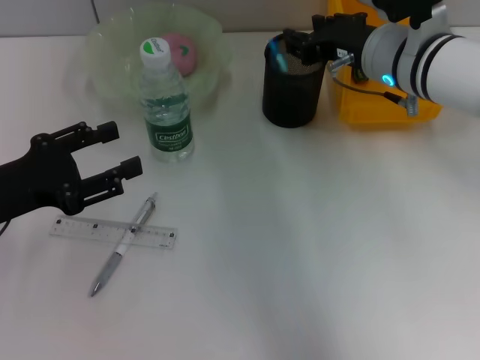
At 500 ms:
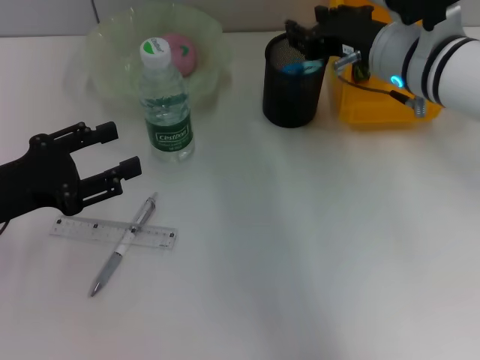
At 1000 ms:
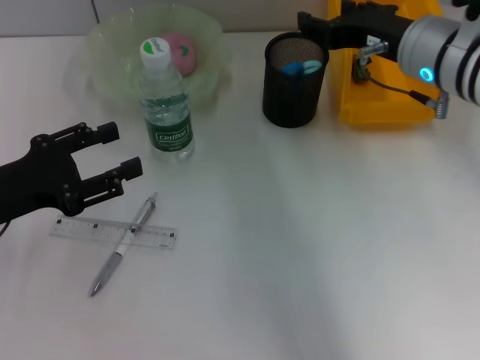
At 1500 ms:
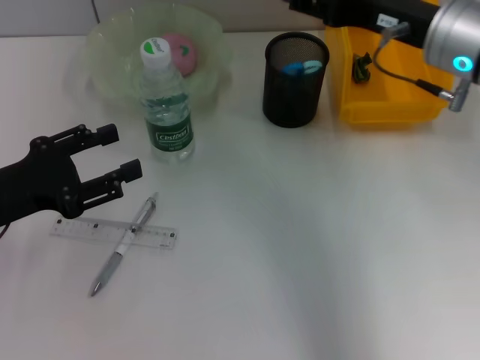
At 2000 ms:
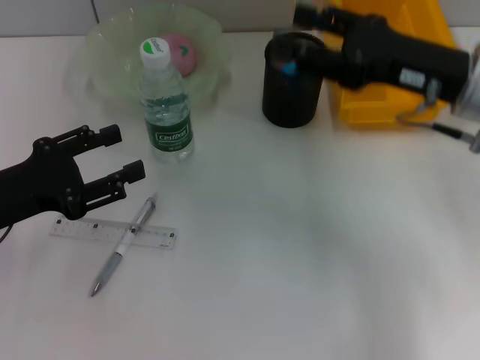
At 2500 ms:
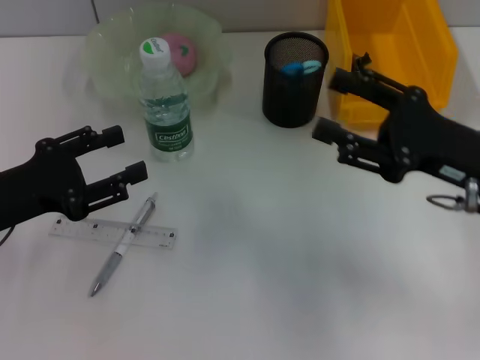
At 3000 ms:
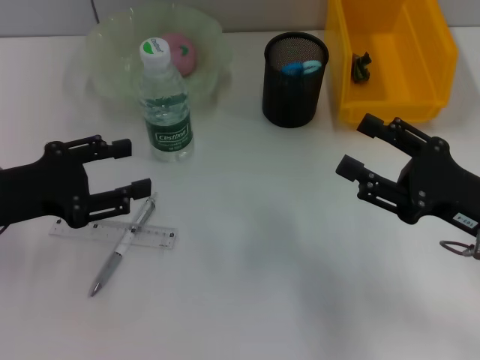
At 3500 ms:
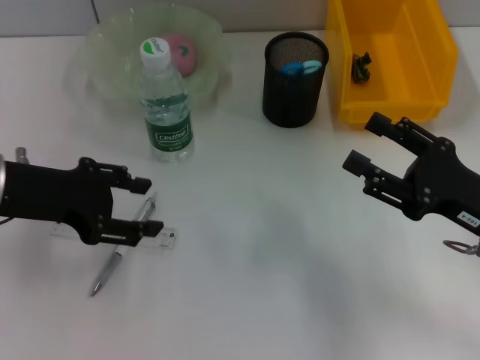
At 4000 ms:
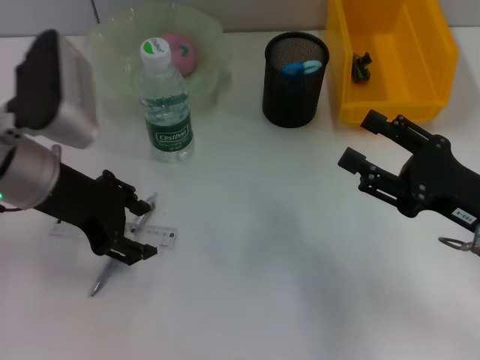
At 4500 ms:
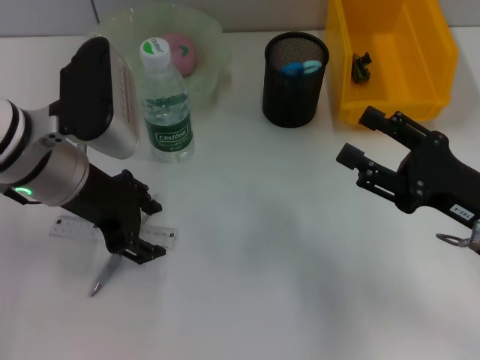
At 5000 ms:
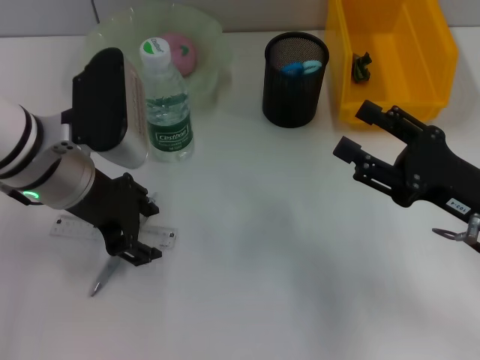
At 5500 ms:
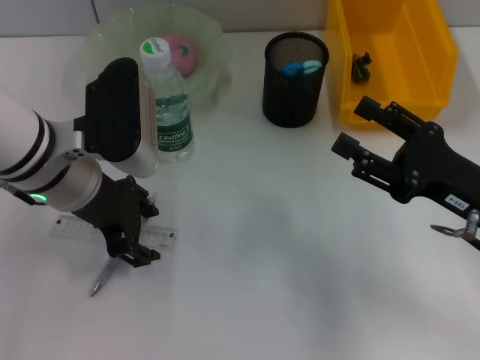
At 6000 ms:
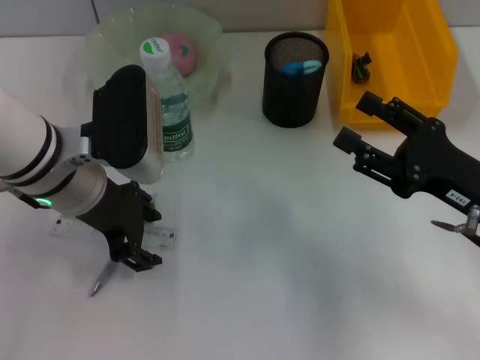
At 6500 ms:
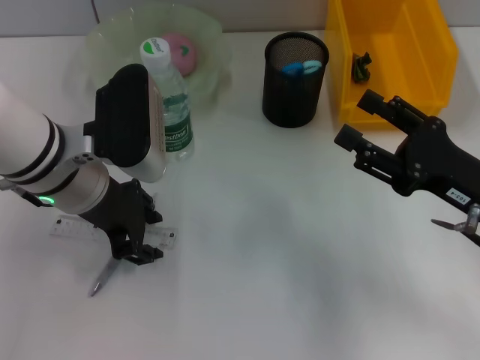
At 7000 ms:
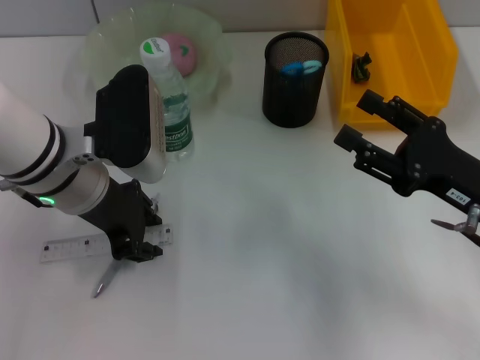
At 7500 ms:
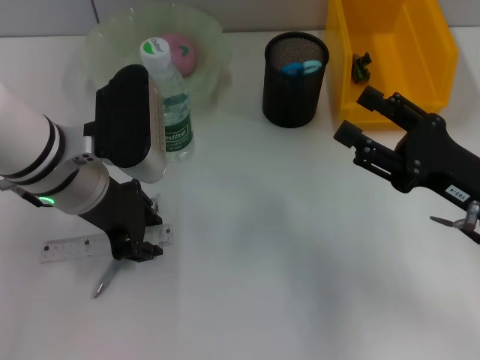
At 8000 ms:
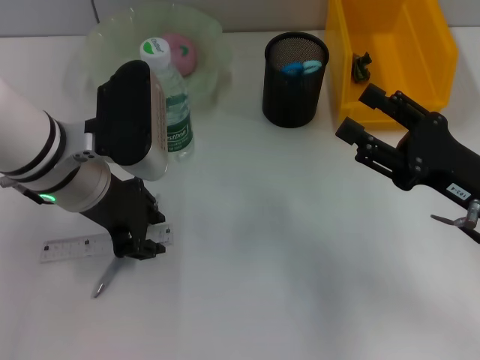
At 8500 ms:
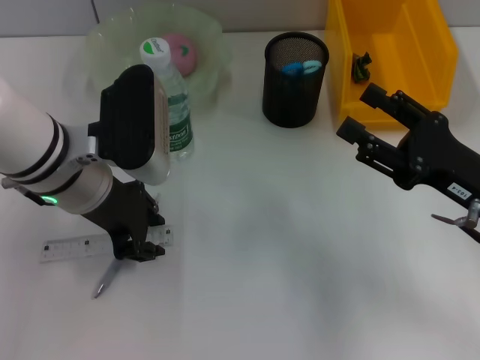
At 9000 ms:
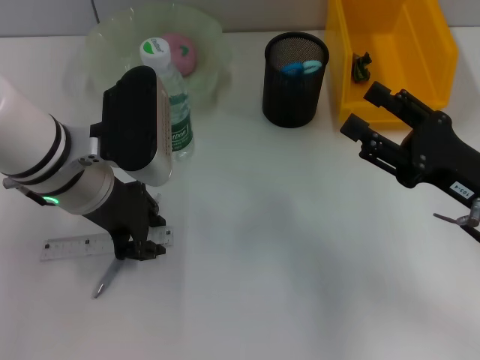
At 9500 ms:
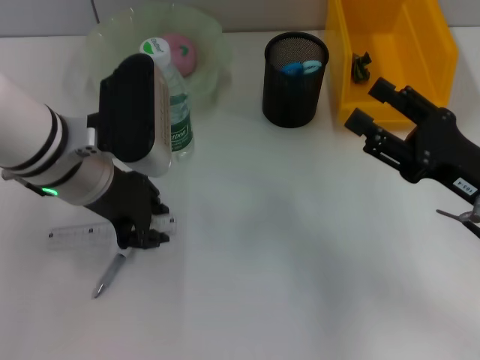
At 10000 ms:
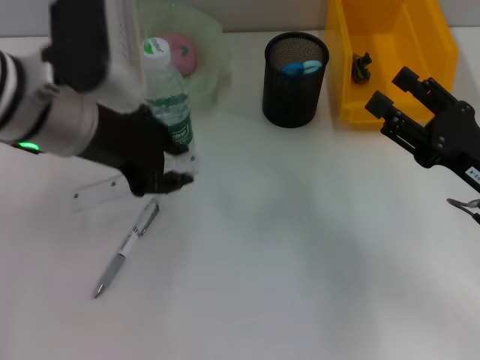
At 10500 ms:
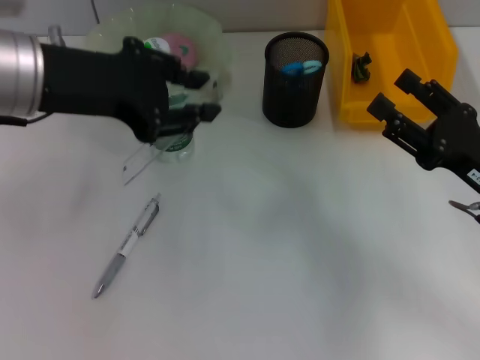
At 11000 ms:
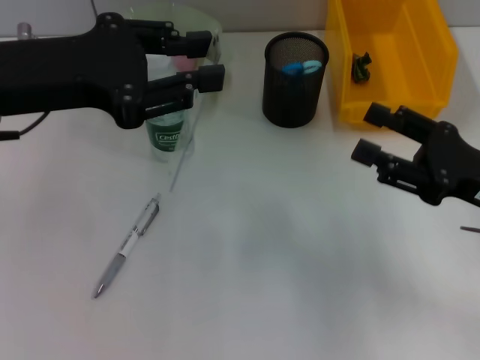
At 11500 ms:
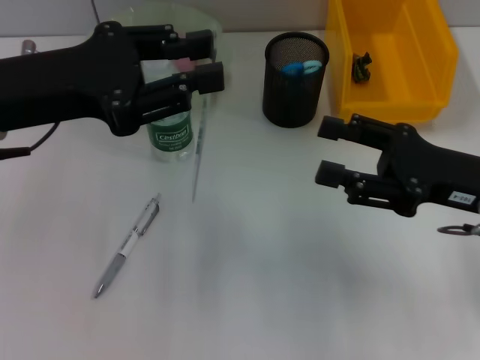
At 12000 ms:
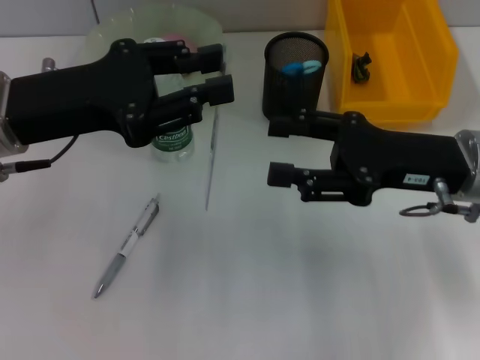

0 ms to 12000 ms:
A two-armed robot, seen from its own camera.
Step, 1000 ms to 9000 ms: Grab the ruler with the left hand.
0 ms to 2000 ms: The right gripper goes some 10 cm to the right and backward, and opens.
2000 ms to 4000 ms: The right gripper travels downward and backward by some 15 cm. The left gripper goes about 10 cm to the right, forward and upward.
4000 ms to 6000 ms: The left gripper moves approximately 5 cm.
6000 ms to 8000 ms: Both grippers stay about where they are.
8000 ms to 10000 ms: The left gripper is displaced upward by approximately 5 cm.
10000 ms to 12000 ms: The left gripper moves to the left, about 5 cm, while the right gripper goes roughly 10 cm upward and to the left.

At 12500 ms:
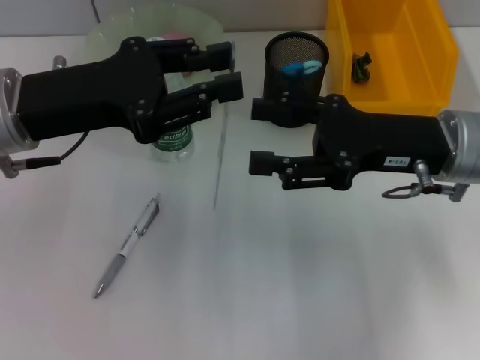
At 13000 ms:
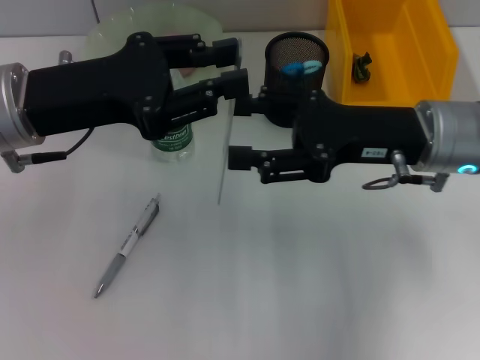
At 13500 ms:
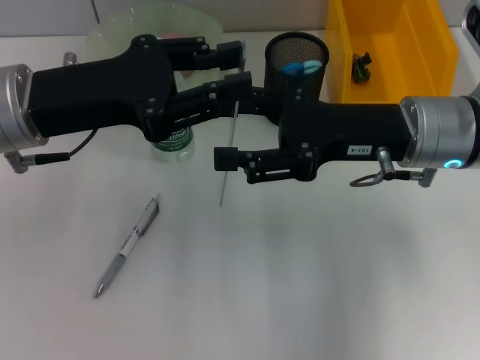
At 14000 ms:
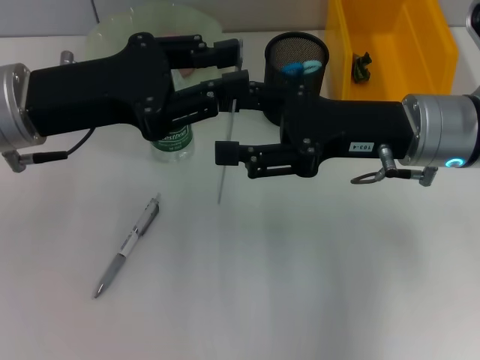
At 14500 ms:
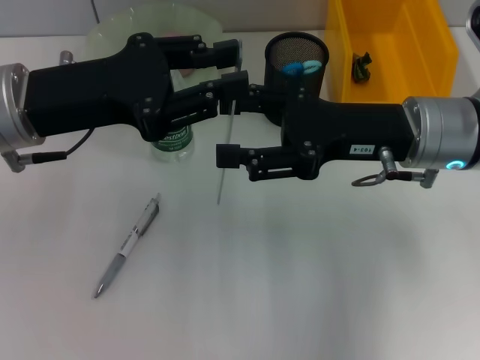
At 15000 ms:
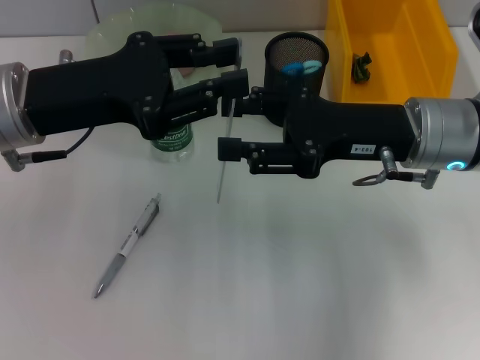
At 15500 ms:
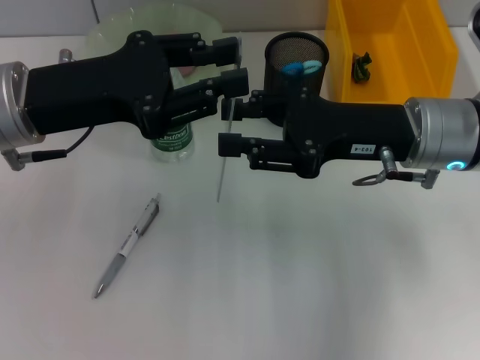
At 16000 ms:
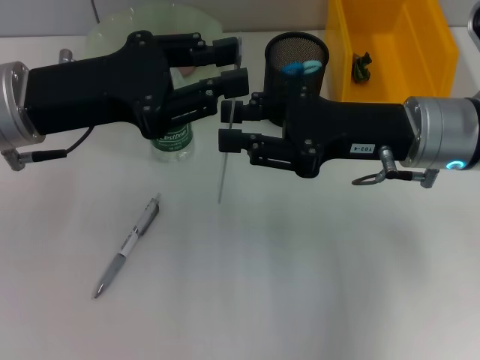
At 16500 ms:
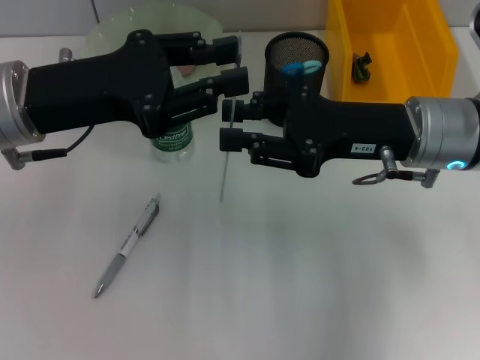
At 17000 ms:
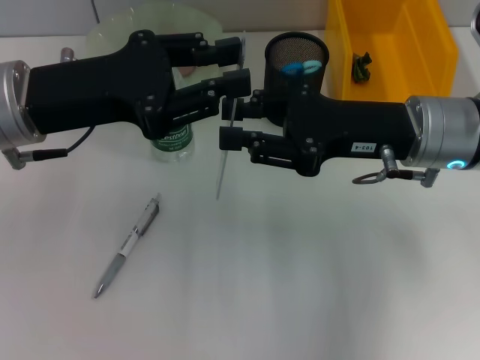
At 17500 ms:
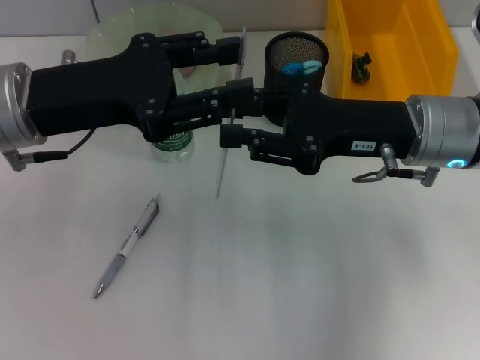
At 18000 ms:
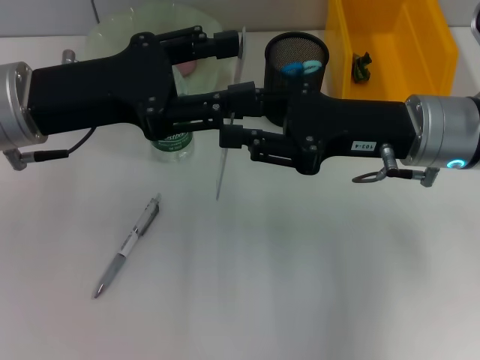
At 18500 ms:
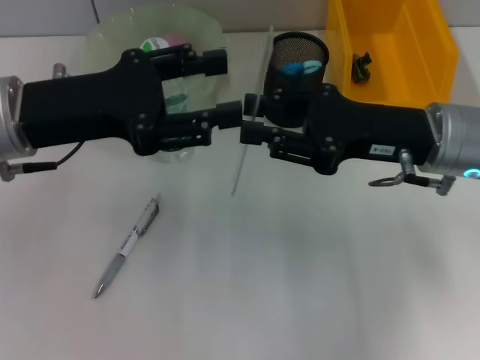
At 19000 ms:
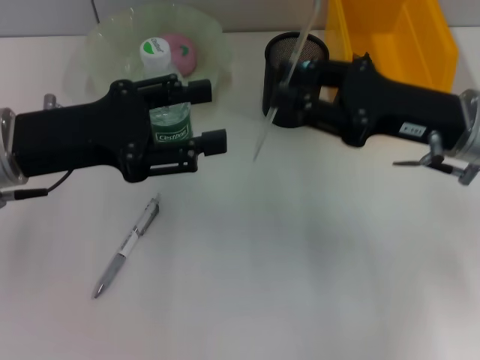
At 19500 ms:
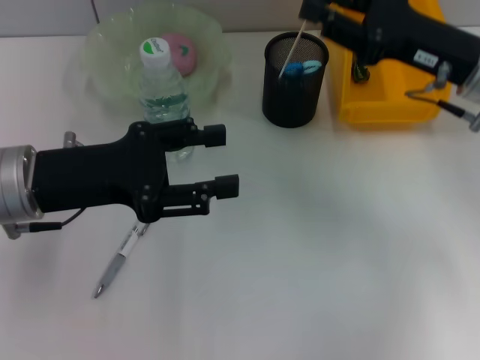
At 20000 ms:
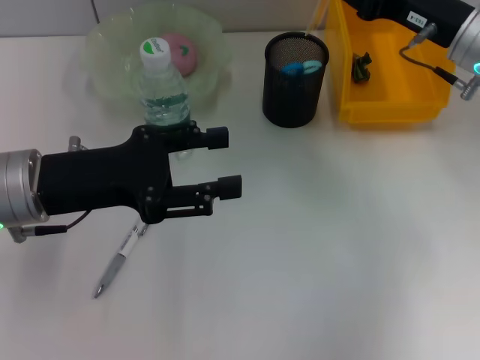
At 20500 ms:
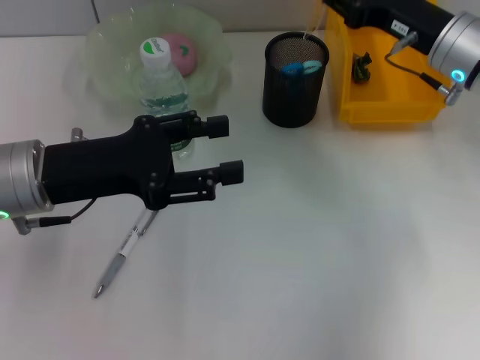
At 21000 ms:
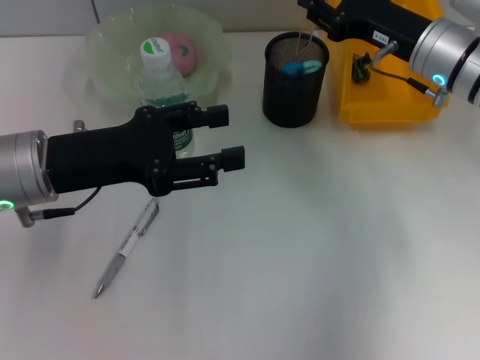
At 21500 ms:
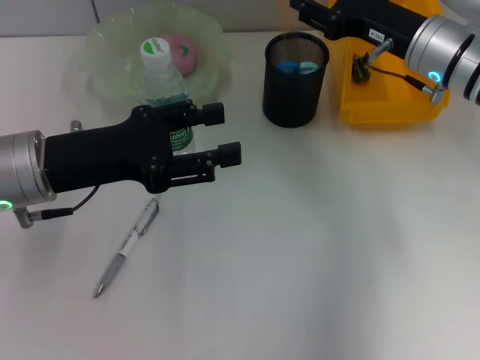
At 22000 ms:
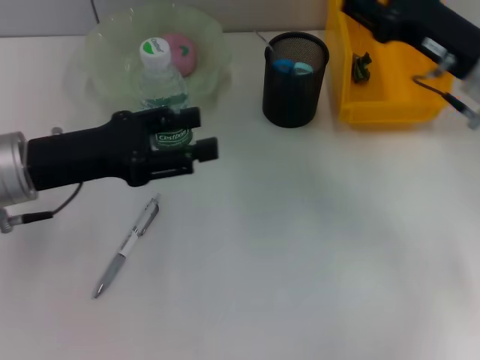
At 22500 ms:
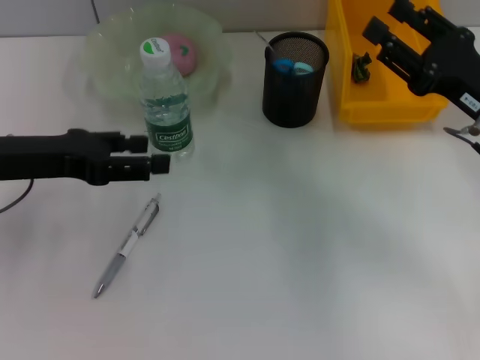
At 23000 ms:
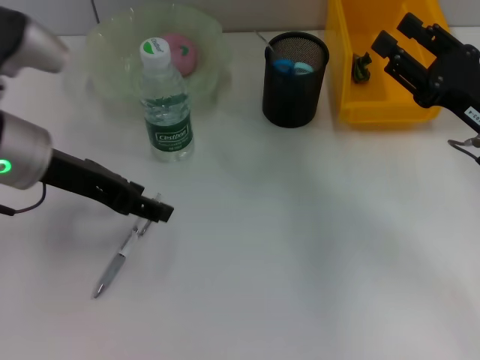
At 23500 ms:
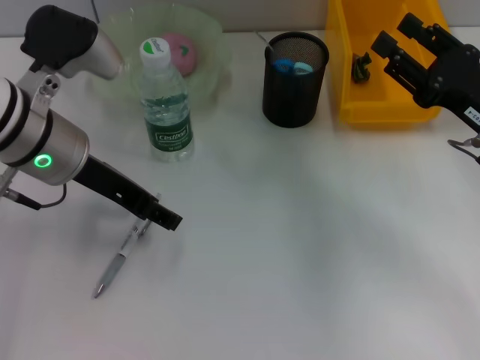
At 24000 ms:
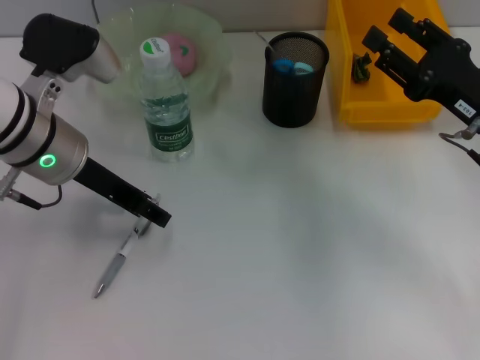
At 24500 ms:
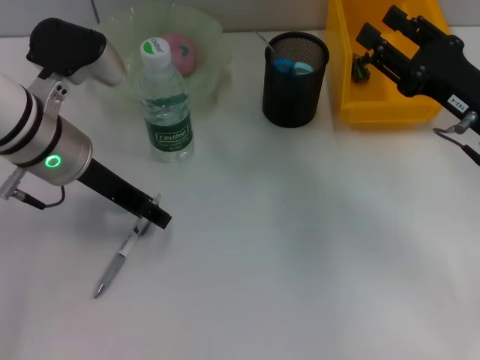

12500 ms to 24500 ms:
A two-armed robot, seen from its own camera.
Step, 12500 ms to 17500 ms: Pass the ruler from the left hand to the right hand.
Step, 18000 ms to 21500 ms: Place the ruler into the pen holder with the right hand.
12500 ms to 14500 ms: The grippers stay close to where they were, moving slightly.
14500 ms to 16500 ms: The right gripper closes its fingers.
16500 ms to 18500 ms: The left gripper opens up.
18500 ms to 20500 ms: The right gripper goes some 10 cm forward.
20500 ms to 22500 ms: The right gripper moves backward, roughly 10 cm. The left gripper moves roughly 5 cm.
22500 ms to 24500 ms: The left gripper shifts roughly 10 cm to the right.

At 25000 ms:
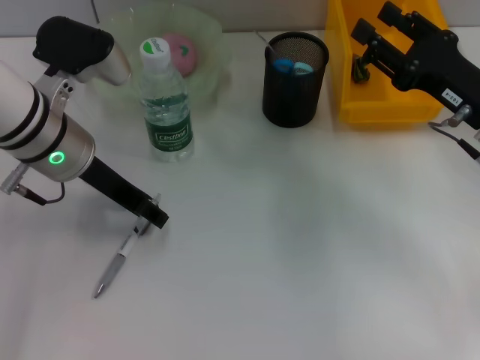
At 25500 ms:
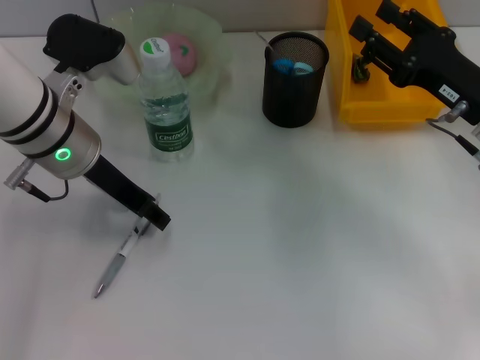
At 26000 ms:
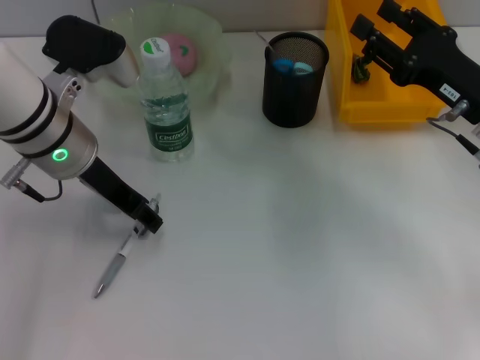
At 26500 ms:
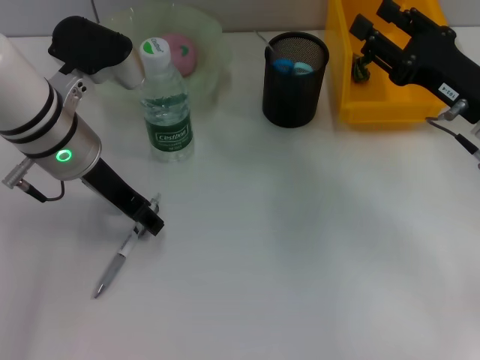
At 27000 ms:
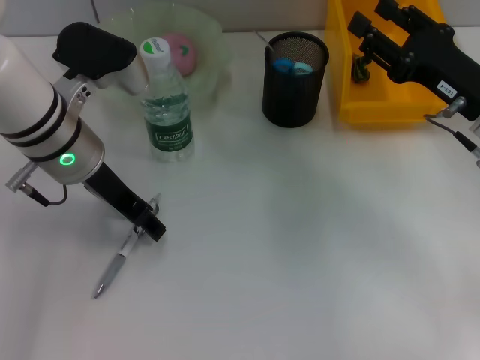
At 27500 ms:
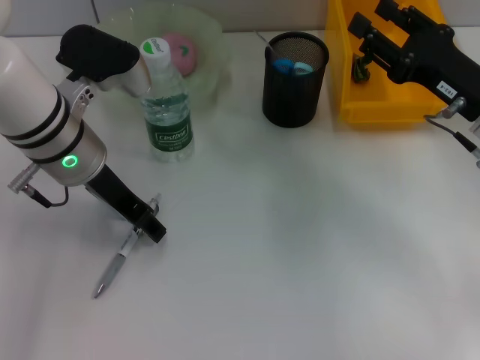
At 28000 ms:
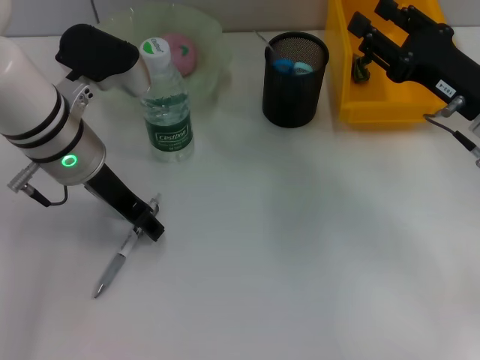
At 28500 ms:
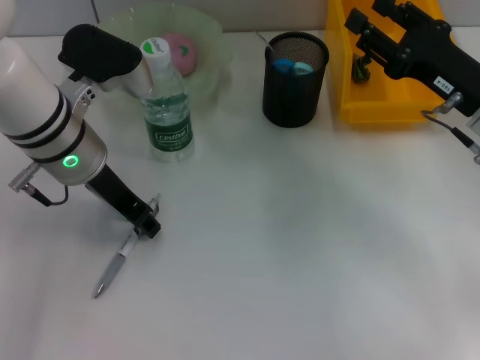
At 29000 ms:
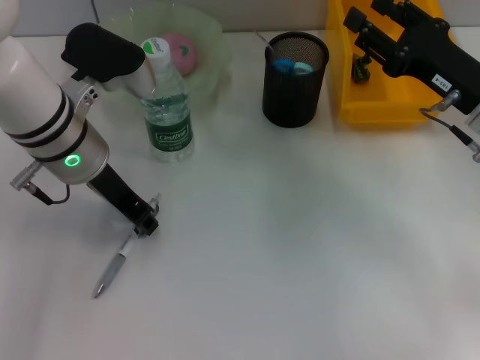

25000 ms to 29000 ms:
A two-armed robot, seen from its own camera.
25000 ms to 27000 ms: There are only small adjustments of the grippers.
27000 ms to 29000 ms: The left gripper closes.
